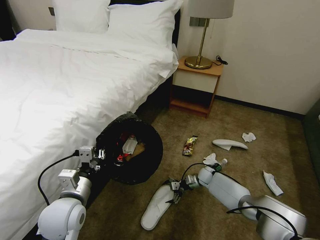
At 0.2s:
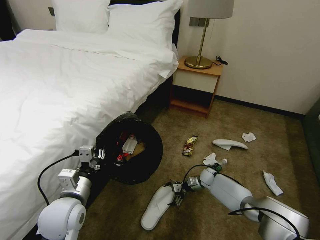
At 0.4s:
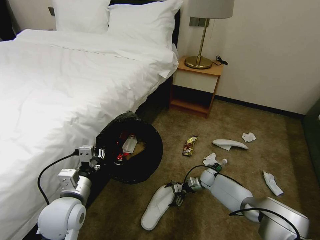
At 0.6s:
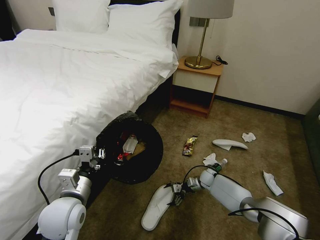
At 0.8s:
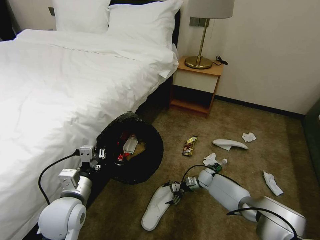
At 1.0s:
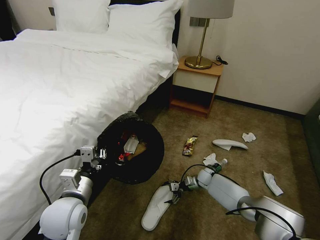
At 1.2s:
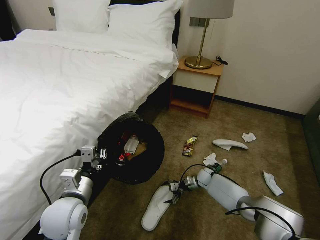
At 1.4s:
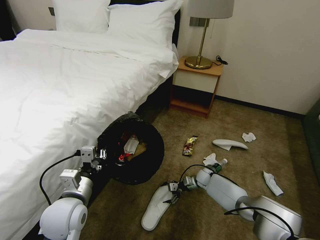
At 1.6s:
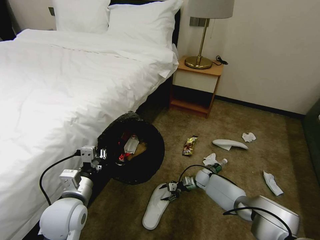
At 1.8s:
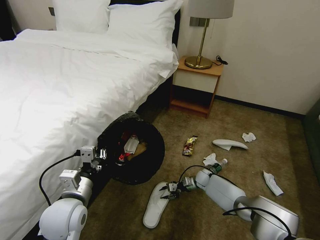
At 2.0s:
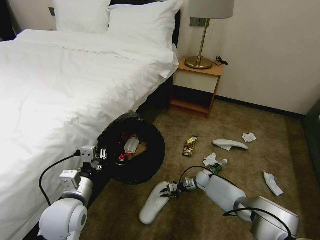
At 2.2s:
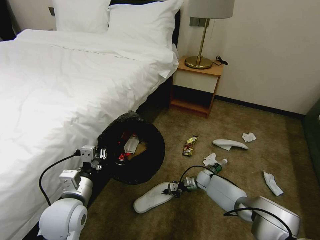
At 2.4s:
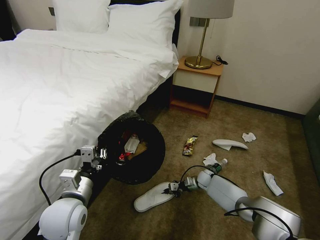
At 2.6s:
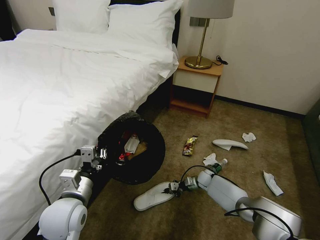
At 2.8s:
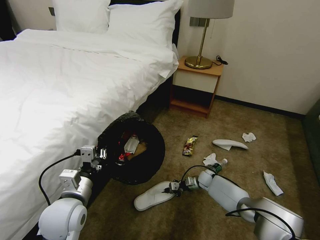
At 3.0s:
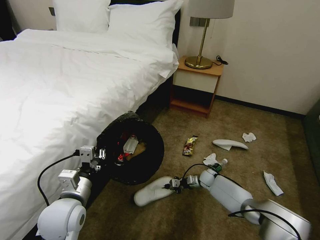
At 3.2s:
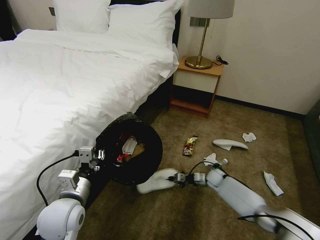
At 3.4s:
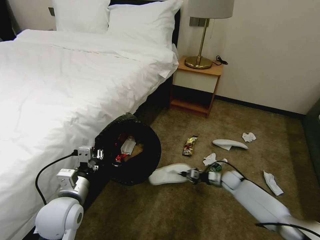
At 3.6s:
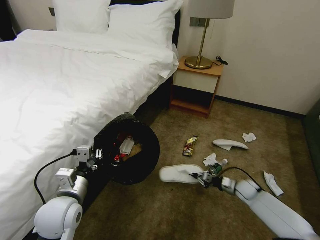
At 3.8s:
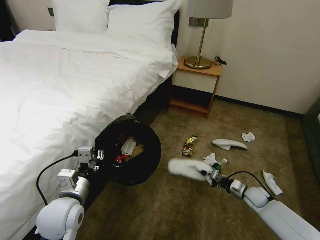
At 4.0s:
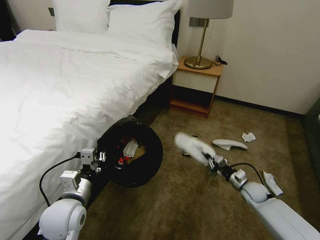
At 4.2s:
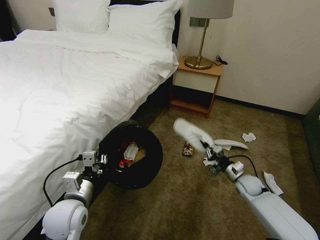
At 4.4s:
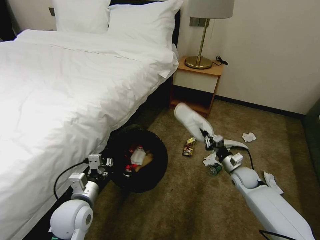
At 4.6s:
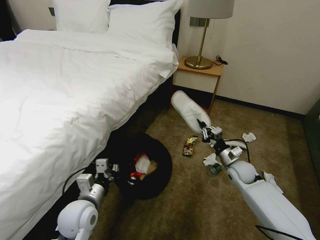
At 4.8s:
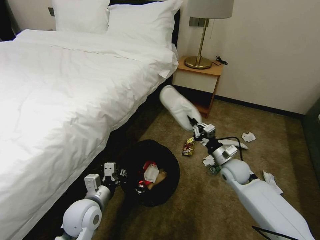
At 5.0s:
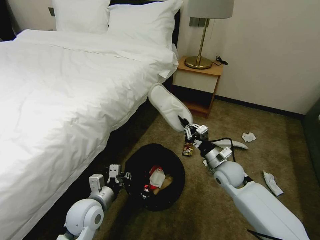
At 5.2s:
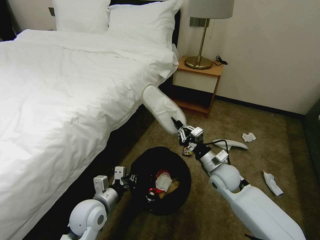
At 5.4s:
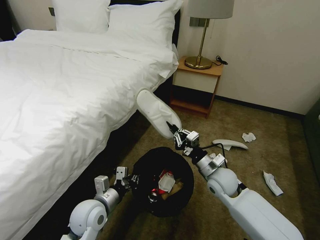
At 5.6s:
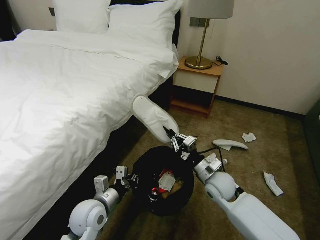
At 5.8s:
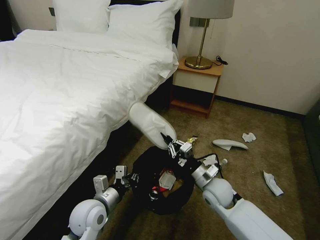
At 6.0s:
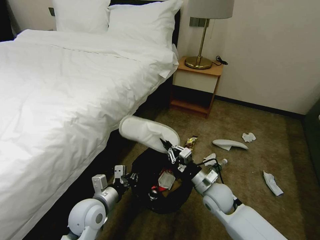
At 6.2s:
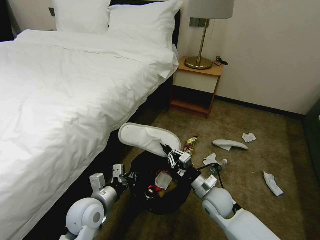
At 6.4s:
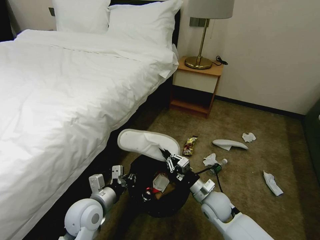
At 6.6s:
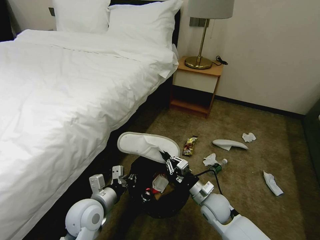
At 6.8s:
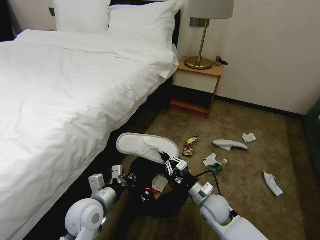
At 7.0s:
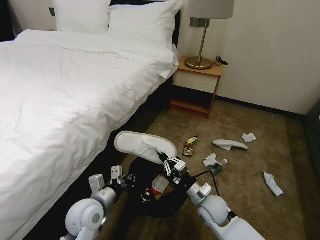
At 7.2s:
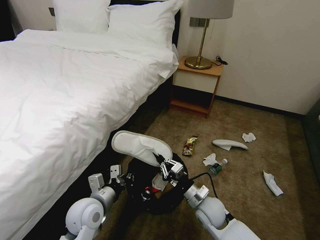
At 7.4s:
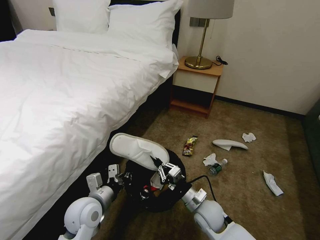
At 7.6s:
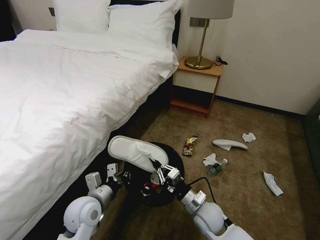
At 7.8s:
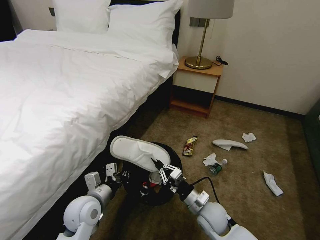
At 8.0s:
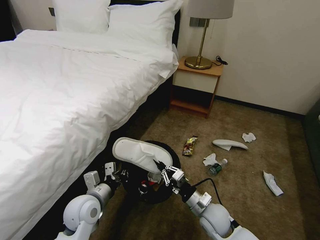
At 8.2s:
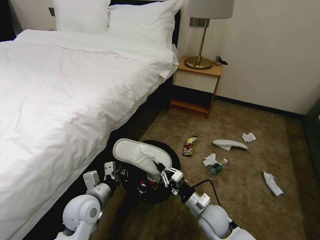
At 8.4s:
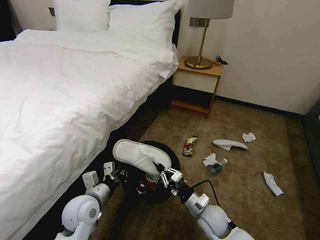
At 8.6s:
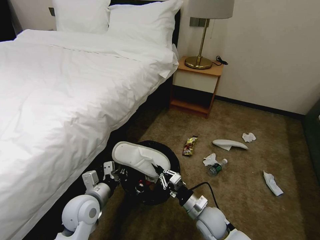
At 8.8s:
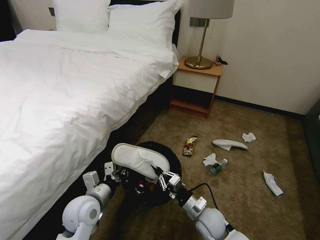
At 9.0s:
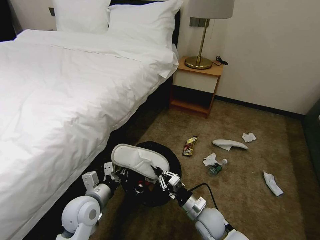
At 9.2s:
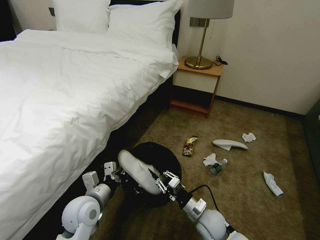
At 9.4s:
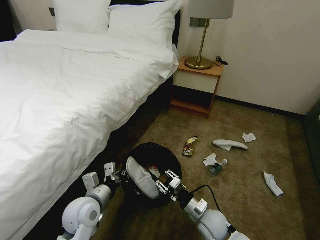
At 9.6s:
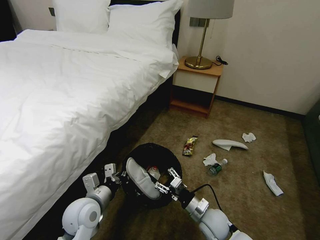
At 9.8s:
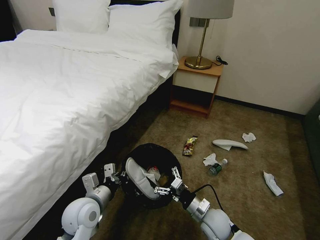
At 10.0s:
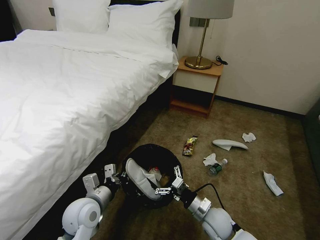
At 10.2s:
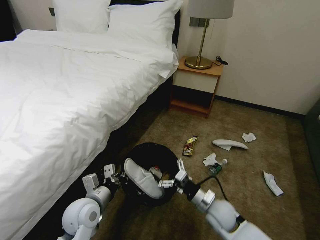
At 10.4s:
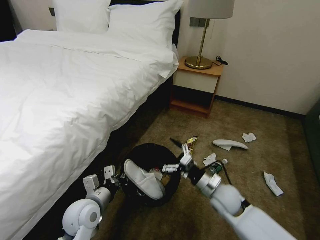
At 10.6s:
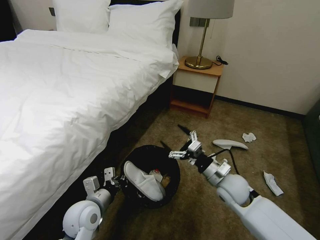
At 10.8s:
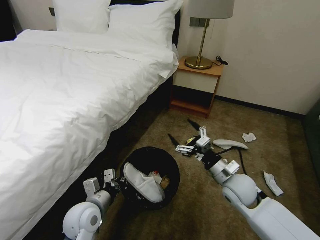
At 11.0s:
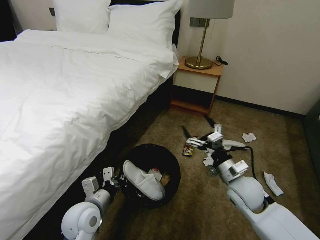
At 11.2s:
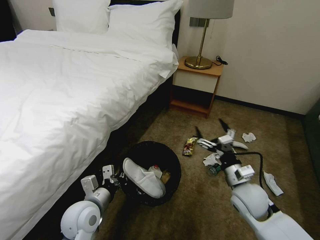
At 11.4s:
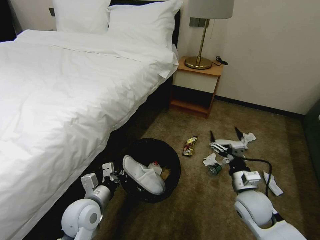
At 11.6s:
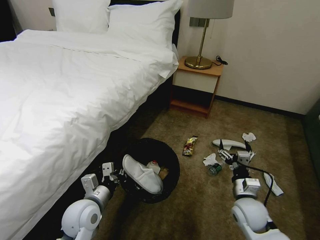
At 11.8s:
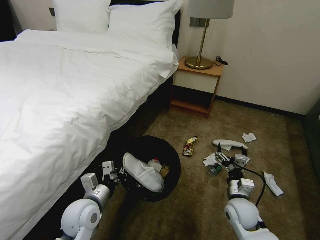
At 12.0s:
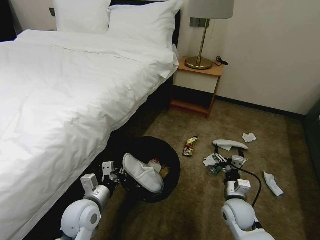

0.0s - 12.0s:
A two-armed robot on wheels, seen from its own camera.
Task of the whole recording: Pick up the trash bin, then pick up the garbage on the floor and place it into the trash bin.
0.0s - 1.6s: The right gripper closes.
1.6s - 3.0s: The right gripper closes up.
3.0s - 4.4s: The right gripper moves upward, to the right and backward, some 15 cm.
4.4s - 6.0s: The right gripper moves to the left and backward, about 20 cm.
6.0s - 7.6s: The right gripper moves backward, about 5 cm.
7.6s - 9.0s: There are only small adjustments of the grippers.
9.0s - 10.4s: The right gripper heads upward and forward, covering approximately 10 cm, and opens.
10.4s - 12.0s: The right gripper goes upward and returns, approximately 5 cm each way.

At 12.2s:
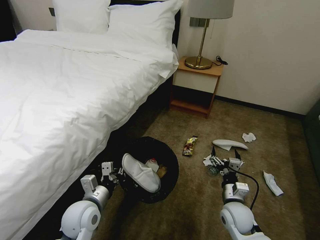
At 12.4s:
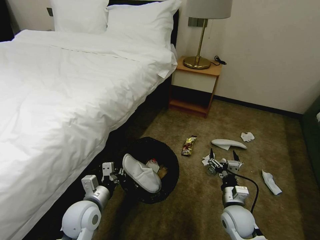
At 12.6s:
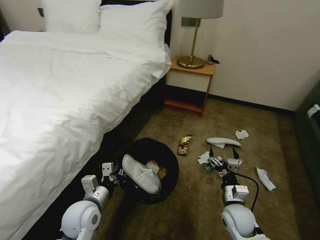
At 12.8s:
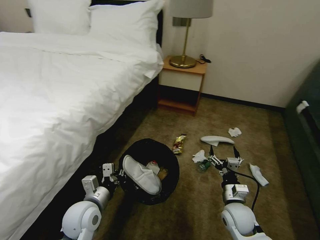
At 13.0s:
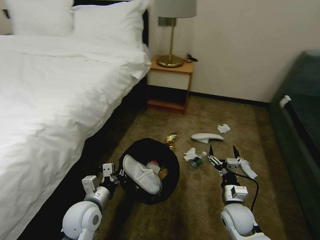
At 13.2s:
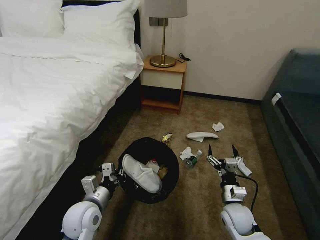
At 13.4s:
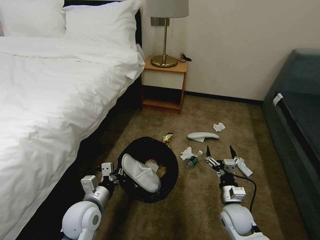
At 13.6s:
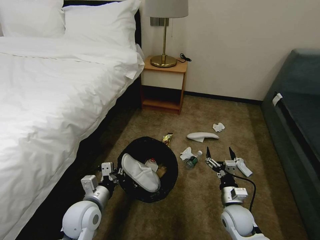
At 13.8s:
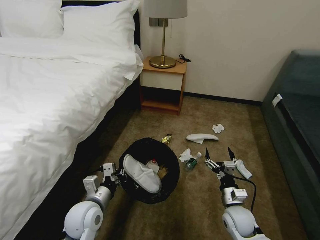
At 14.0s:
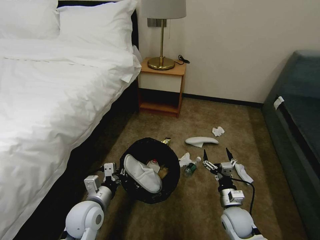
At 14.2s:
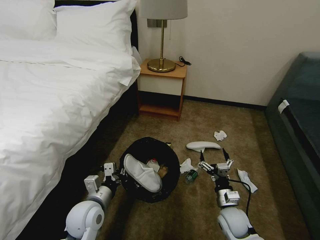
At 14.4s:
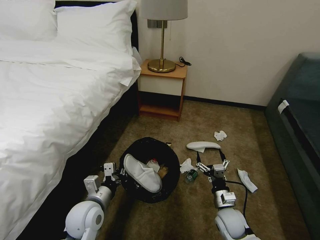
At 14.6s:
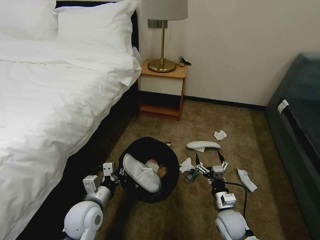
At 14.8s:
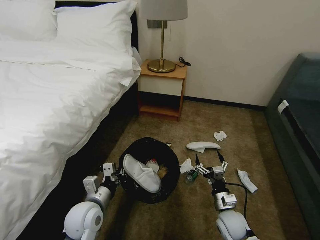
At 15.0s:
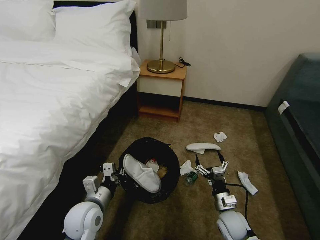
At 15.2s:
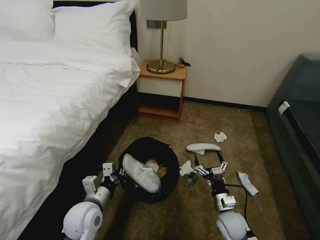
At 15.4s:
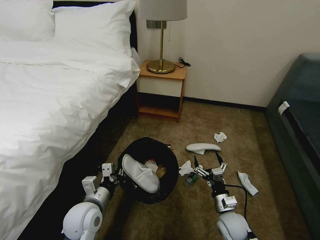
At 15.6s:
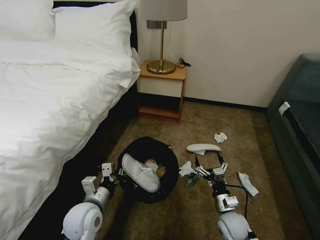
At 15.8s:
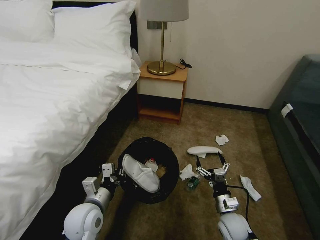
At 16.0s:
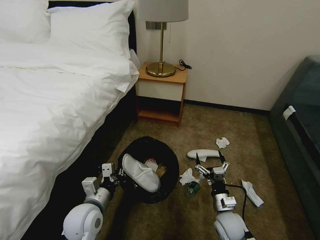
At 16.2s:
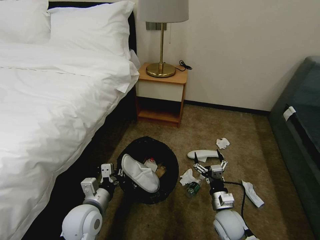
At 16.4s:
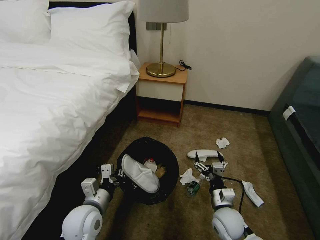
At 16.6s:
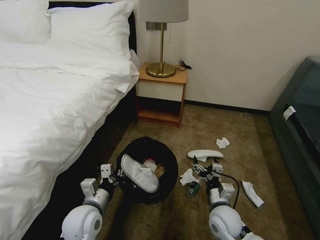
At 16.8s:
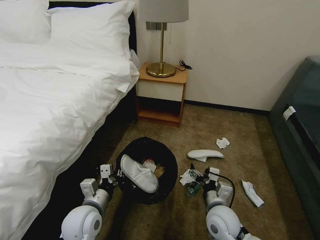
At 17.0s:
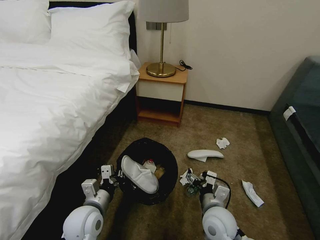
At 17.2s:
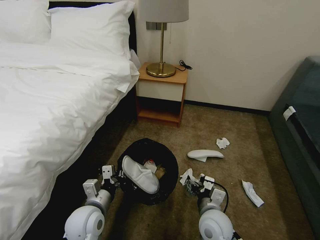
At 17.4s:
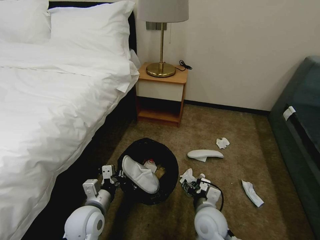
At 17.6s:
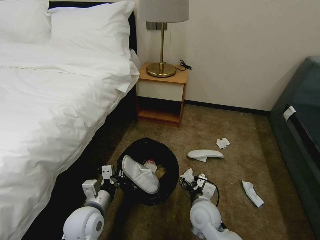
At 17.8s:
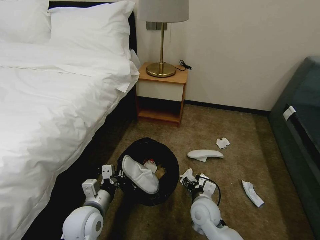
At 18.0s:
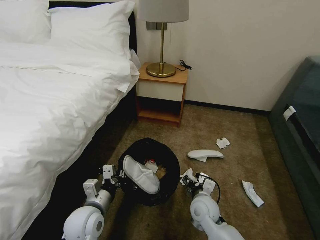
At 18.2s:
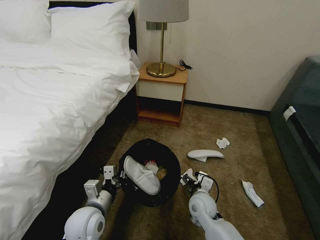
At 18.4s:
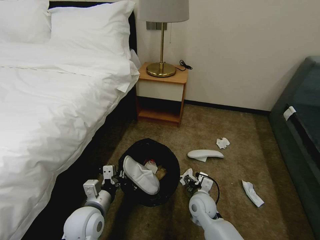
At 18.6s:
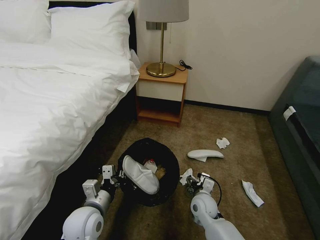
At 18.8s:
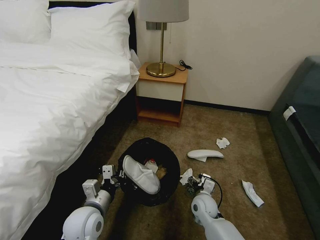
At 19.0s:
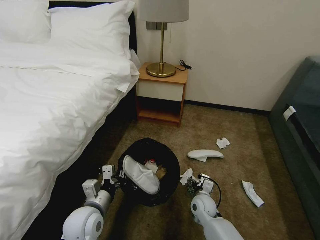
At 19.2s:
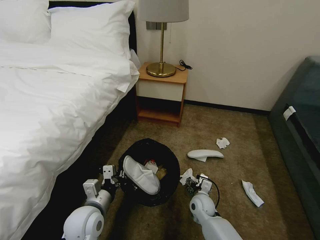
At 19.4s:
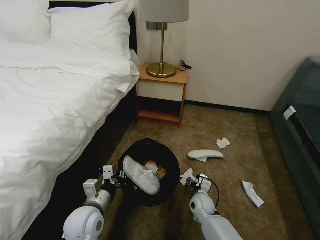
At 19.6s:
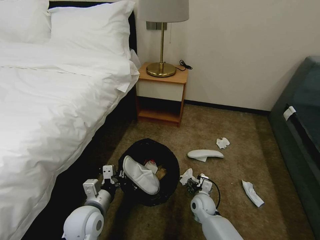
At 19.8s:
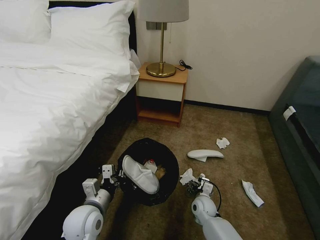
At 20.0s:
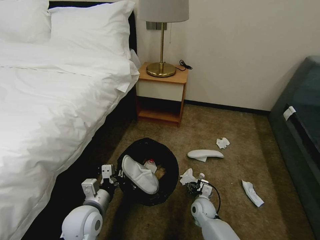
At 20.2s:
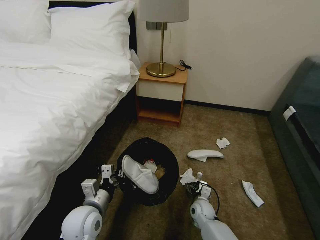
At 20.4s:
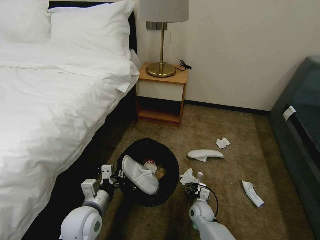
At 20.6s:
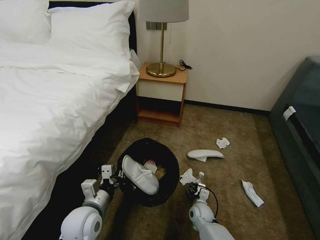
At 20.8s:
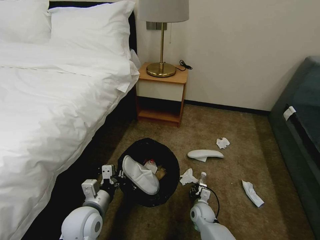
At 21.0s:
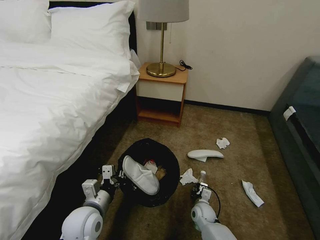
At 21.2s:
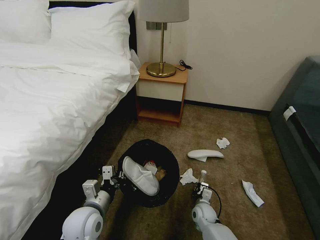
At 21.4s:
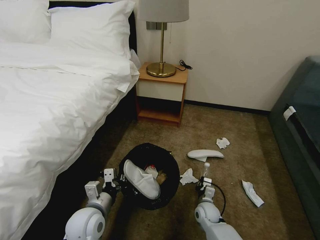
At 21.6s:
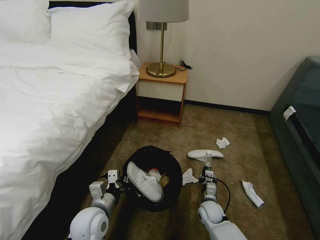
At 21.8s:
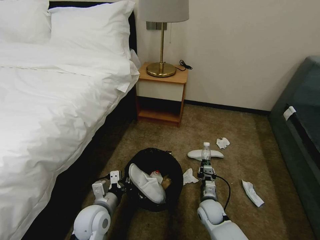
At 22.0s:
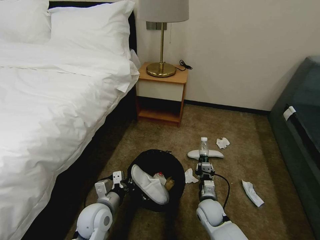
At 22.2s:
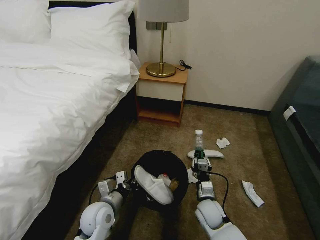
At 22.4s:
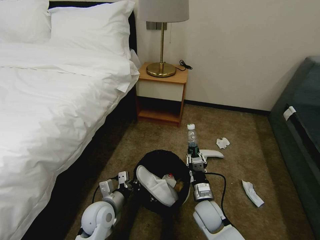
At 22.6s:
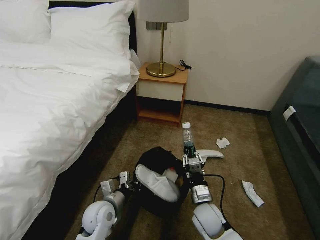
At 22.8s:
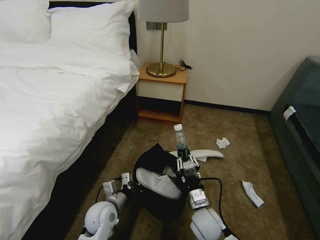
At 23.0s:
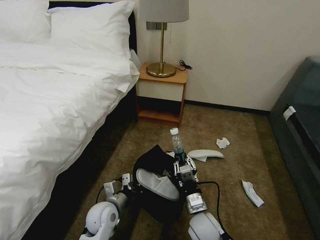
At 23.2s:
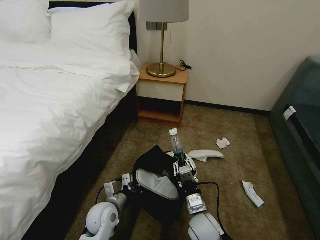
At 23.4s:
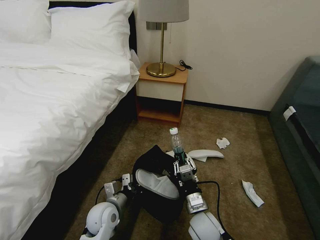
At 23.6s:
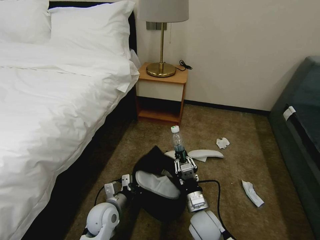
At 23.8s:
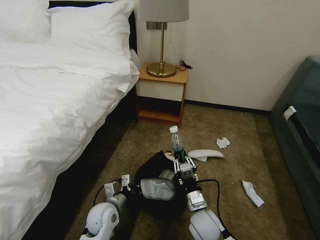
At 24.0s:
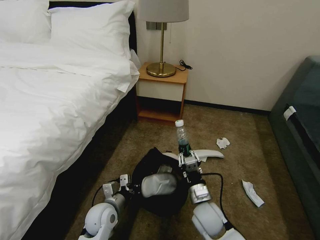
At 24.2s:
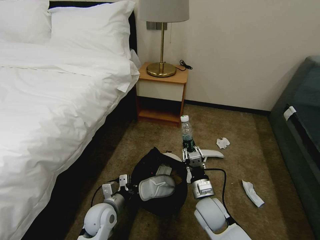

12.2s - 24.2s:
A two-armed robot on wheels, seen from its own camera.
Task of the whole recording: Pick up the trash bin, then pick up the garbage on the floor and place it into the trash bin.
13.8s - 15.2s: The grippers make only small movements.
15.2s - 16.6s: The right gripper is displaced upward by roughly 5 cm.
16.6s - 18.2s: The right gripper shifts about 10 cm forward and to the left.
18.2s - 19.8s: The right gripper heads downward, covering roughly 10 cm.
19.8s - 21.2s: The right gripper closes.
21.2s - 22.6s: The left gripper heads downward, covering about 5 cm; the right gripper heads upward, covering some 15 cm.
22.6s - 24.2s: The left gripper closes its fingers.
